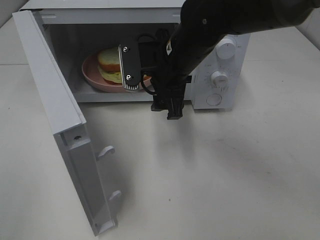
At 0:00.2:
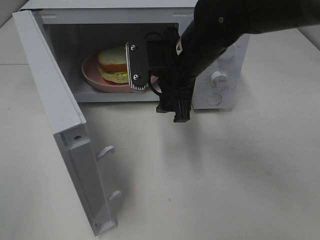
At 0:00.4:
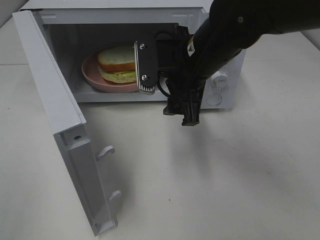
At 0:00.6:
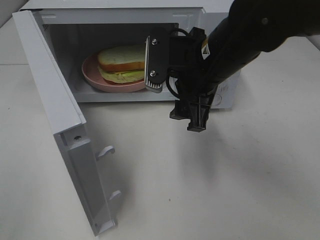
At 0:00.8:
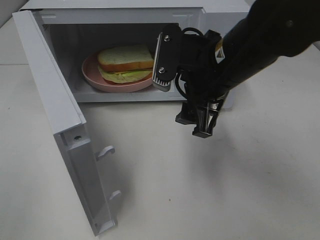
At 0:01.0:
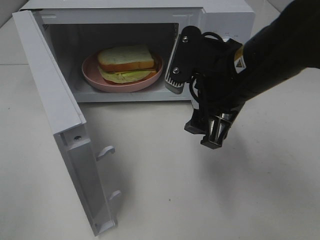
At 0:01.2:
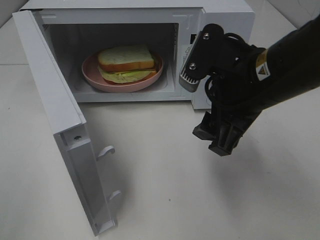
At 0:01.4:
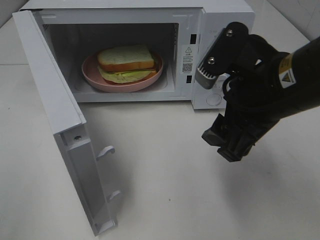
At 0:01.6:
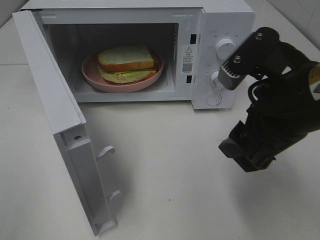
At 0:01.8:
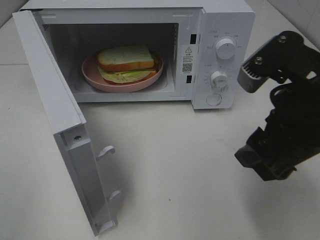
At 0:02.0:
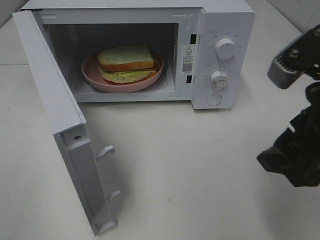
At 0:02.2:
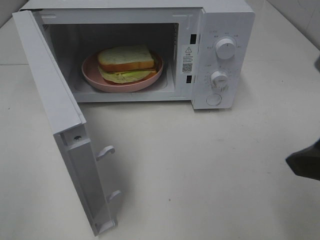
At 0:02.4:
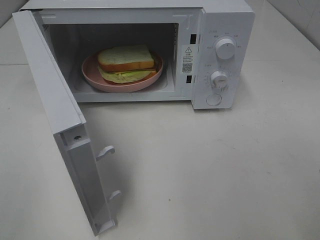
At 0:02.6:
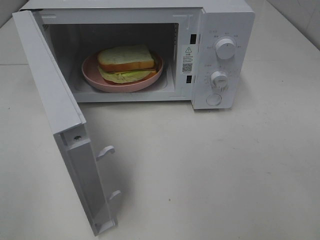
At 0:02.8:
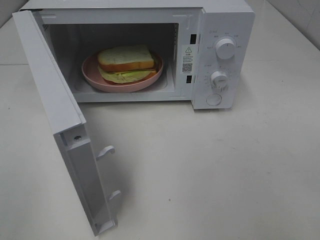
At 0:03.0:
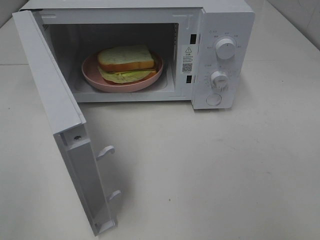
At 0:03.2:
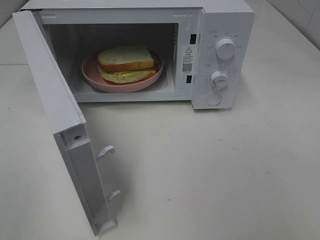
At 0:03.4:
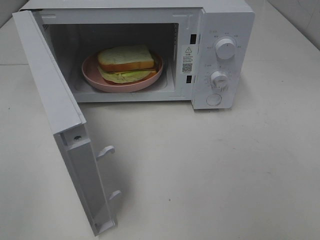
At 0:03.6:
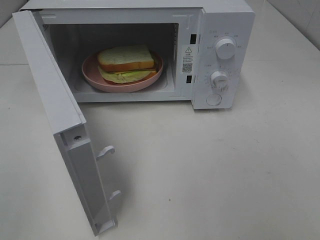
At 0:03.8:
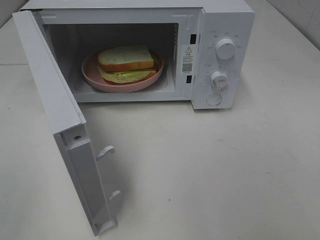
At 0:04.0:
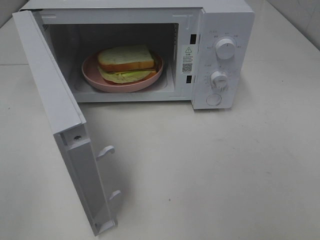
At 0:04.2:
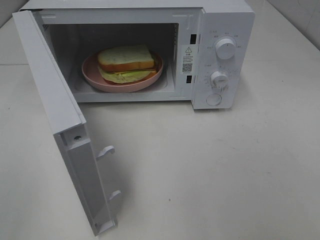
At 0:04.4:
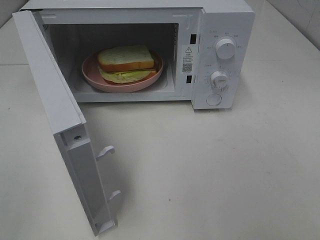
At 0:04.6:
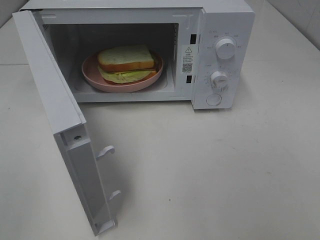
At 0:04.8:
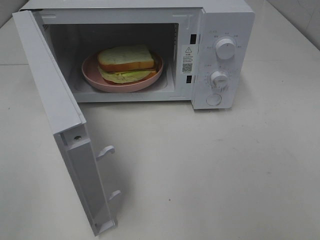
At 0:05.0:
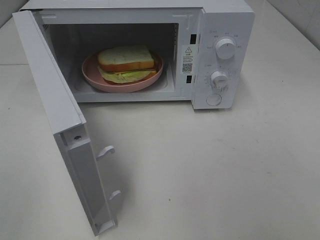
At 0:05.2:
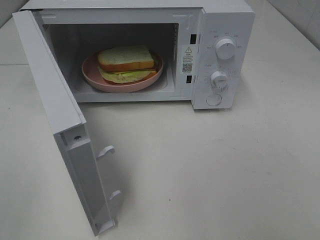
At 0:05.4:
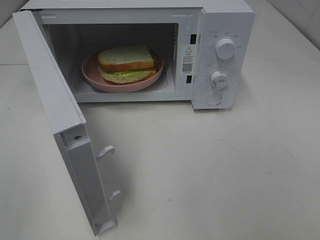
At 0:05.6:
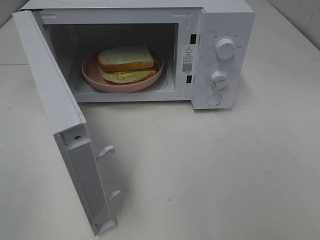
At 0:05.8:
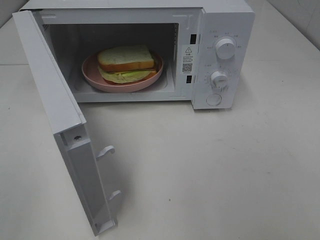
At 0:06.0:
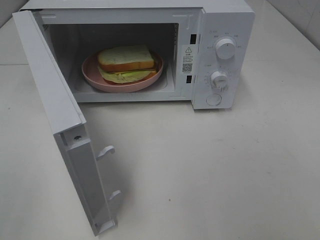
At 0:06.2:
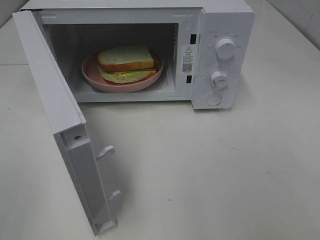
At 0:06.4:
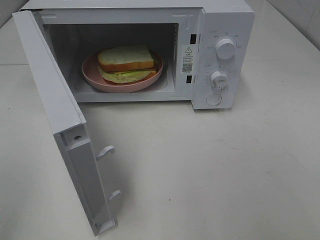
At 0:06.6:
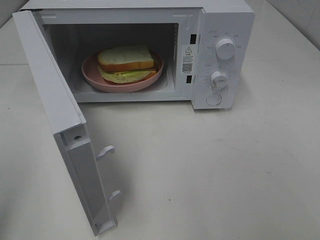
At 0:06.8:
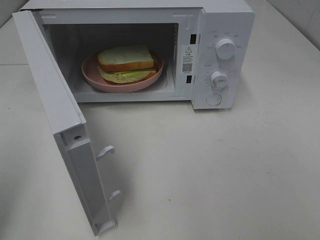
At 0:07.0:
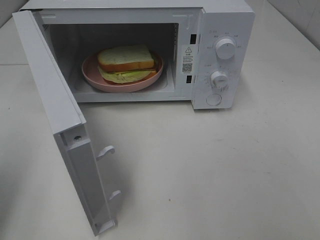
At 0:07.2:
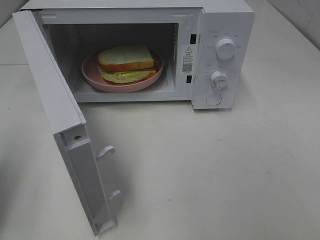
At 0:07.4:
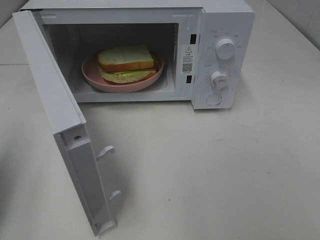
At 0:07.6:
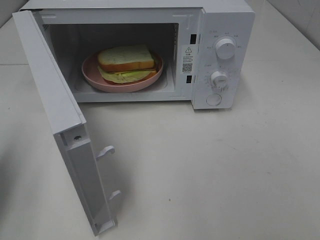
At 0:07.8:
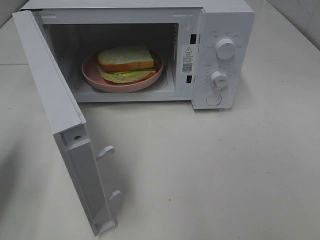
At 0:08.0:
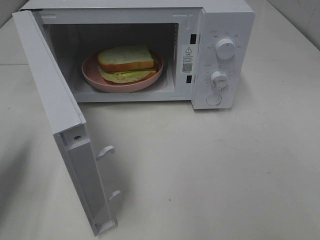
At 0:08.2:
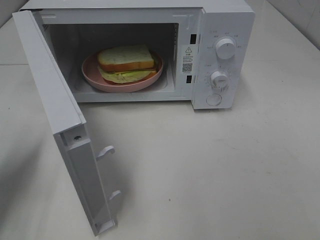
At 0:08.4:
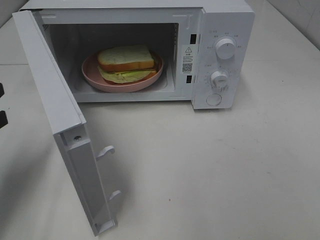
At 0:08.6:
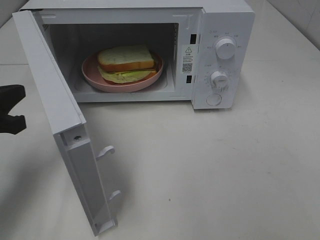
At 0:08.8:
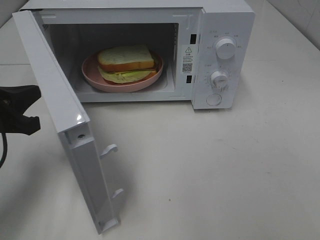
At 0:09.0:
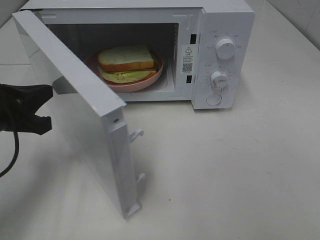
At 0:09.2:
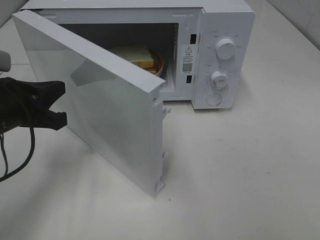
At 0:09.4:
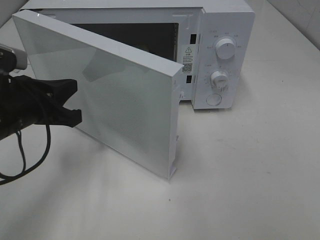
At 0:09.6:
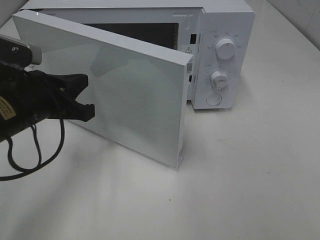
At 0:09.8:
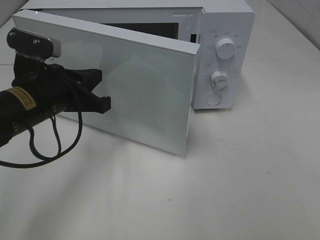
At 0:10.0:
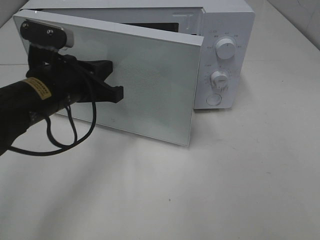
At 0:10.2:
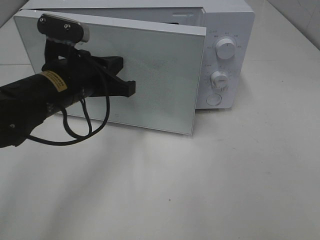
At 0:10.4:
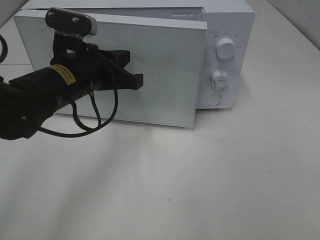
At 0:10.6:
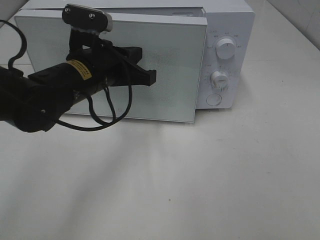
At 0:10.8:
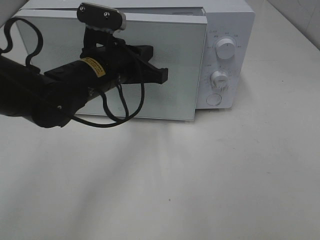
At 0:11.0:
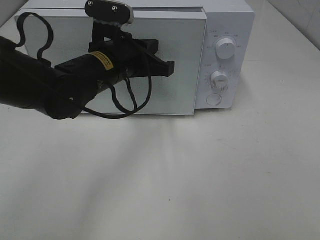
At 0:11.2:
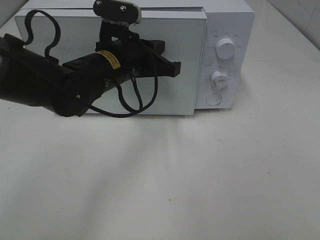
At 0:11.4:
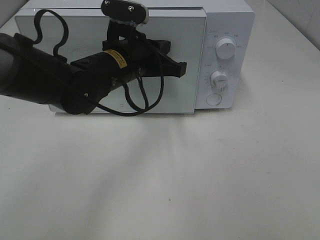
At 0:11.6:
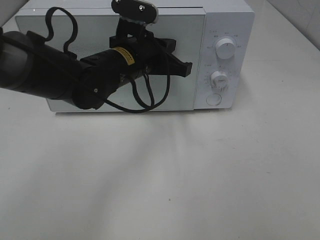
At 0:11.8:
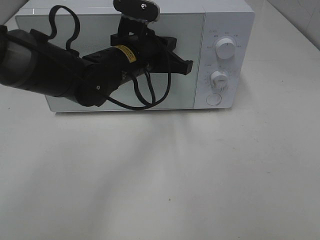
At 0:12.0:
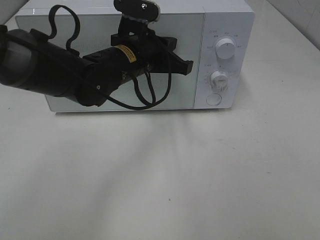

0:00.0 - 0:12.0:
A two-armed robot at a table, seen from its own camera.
Task of the whole recording: Heat Sandwich.
0:00.0 - 0:01.6: The right gripper travels backward and to the right by roughly 20 cm.
0:01.6 - 0:03.0: The right gripper goes roughly 20 cm backward, to the right and upward.
0:04.4 - 0:06.0: Both grippers stay put.
0:06.0 - 0:07.6: The left gripper travels forward by roughly 15 cm, and closes.
0:07.6 - 0:09.0: The left gripper is displaced to the right, forward and downward by approximately 10 cm.
0:09.0 - 0:10.4: The left gripper moves to the right and forward, approximately 15 cm.
0:10.4 - 0:12.0: The left gripper shifts approximately 10 cm to the right and forward.

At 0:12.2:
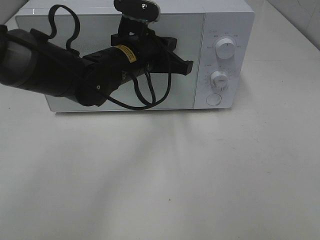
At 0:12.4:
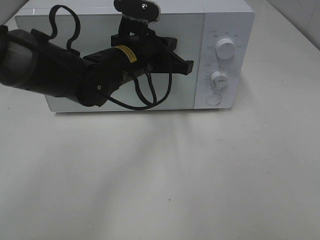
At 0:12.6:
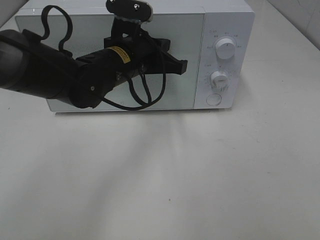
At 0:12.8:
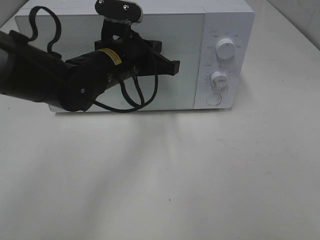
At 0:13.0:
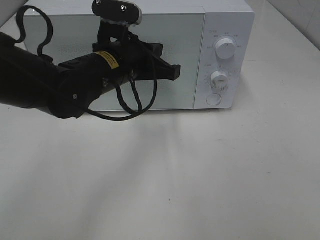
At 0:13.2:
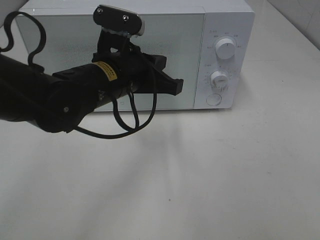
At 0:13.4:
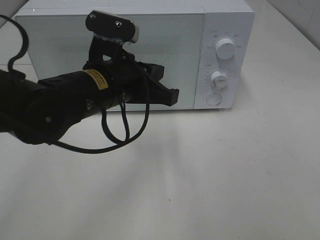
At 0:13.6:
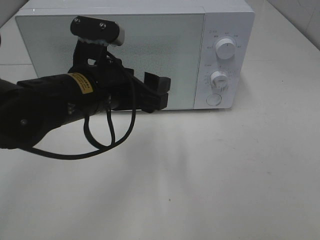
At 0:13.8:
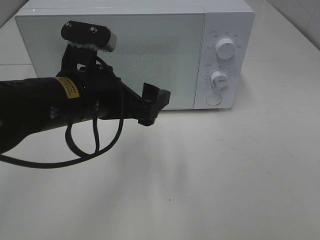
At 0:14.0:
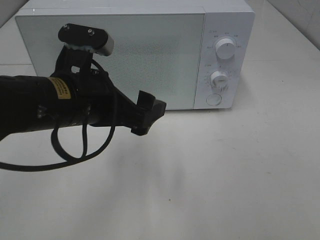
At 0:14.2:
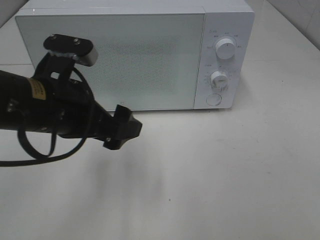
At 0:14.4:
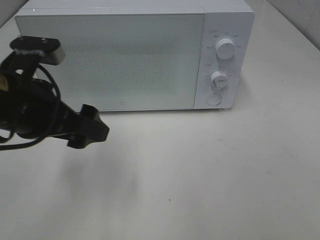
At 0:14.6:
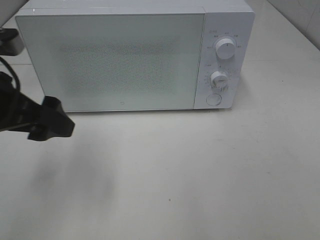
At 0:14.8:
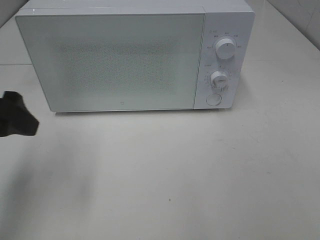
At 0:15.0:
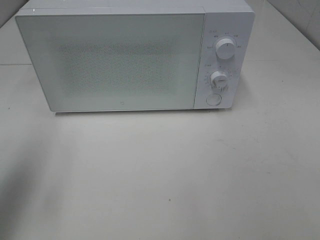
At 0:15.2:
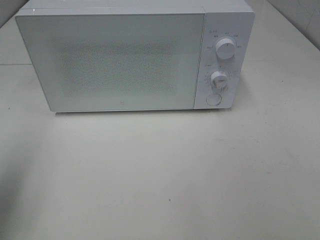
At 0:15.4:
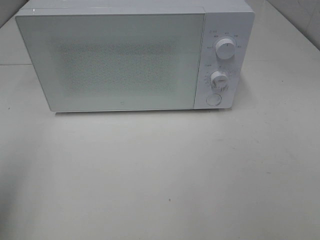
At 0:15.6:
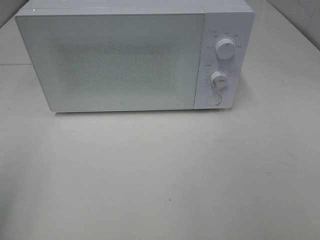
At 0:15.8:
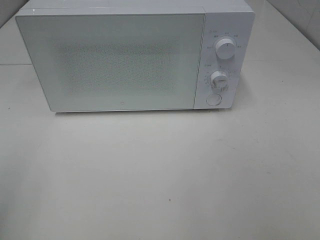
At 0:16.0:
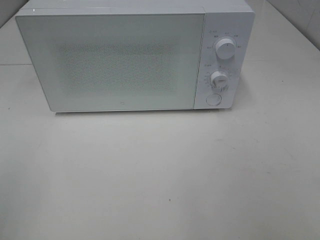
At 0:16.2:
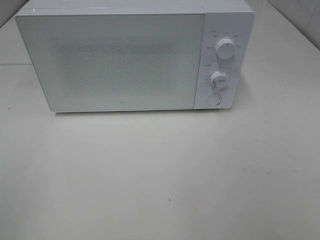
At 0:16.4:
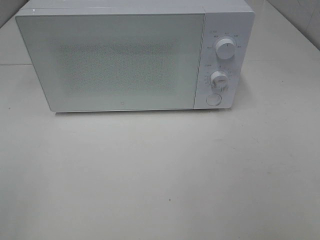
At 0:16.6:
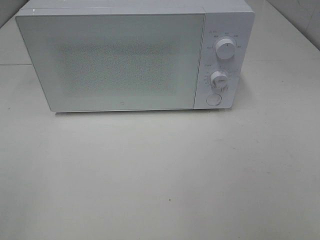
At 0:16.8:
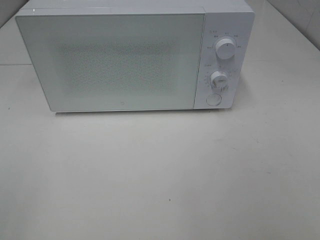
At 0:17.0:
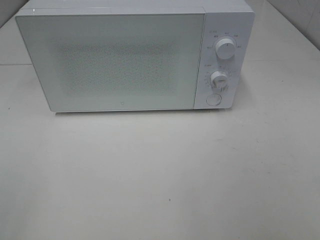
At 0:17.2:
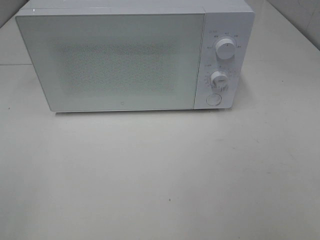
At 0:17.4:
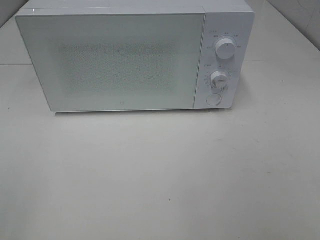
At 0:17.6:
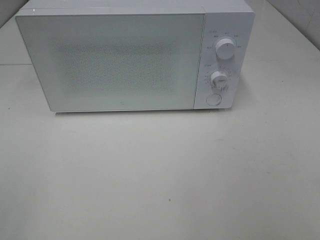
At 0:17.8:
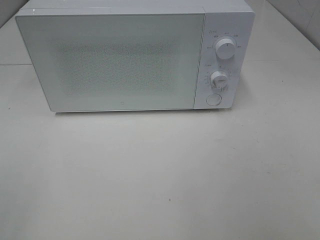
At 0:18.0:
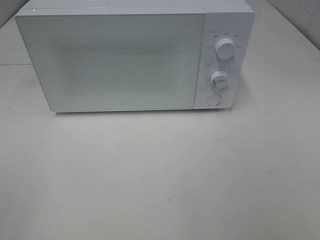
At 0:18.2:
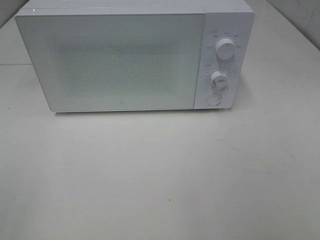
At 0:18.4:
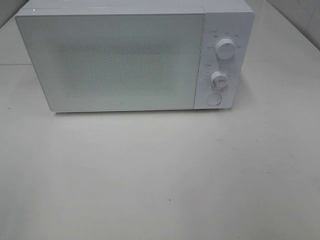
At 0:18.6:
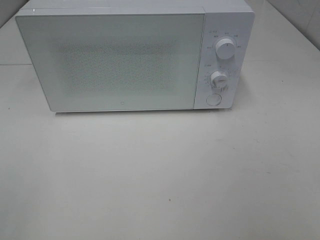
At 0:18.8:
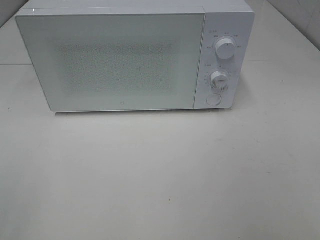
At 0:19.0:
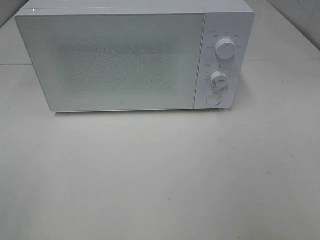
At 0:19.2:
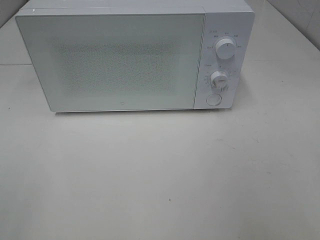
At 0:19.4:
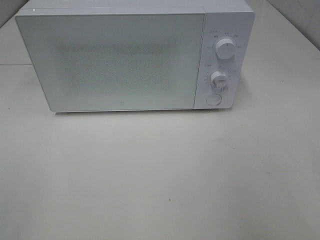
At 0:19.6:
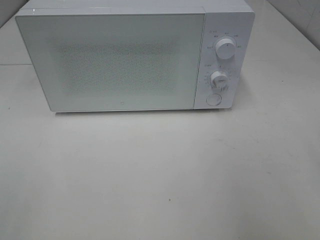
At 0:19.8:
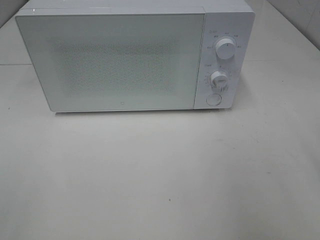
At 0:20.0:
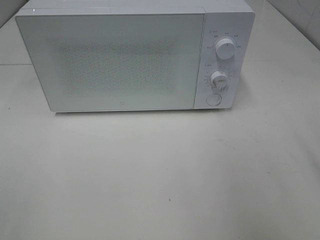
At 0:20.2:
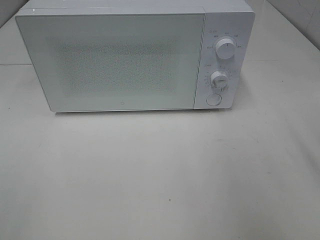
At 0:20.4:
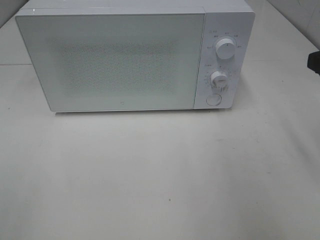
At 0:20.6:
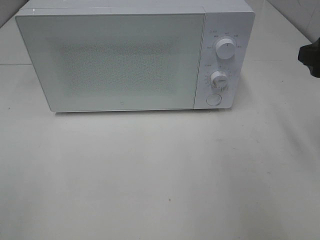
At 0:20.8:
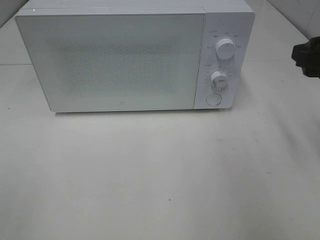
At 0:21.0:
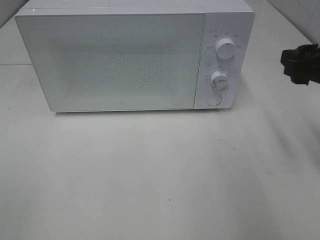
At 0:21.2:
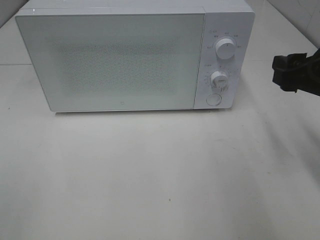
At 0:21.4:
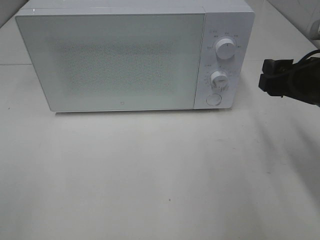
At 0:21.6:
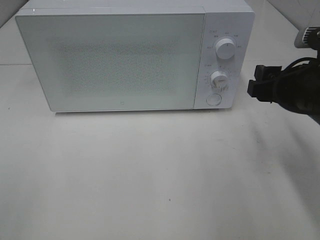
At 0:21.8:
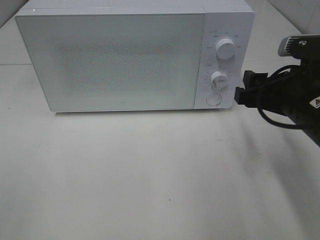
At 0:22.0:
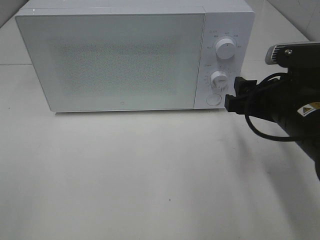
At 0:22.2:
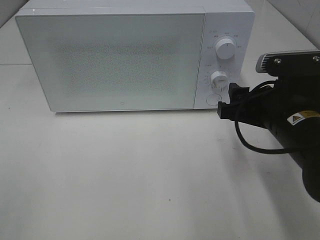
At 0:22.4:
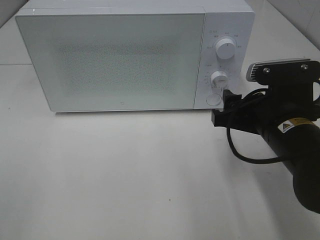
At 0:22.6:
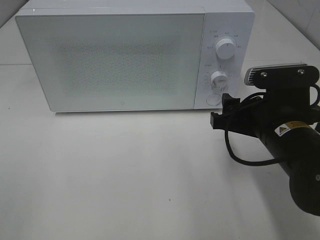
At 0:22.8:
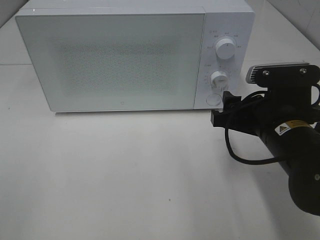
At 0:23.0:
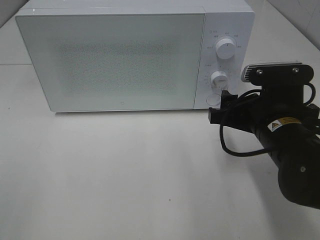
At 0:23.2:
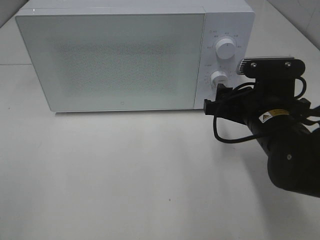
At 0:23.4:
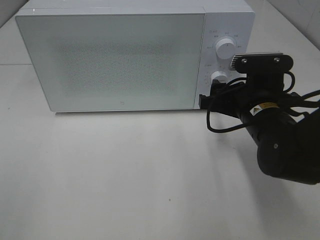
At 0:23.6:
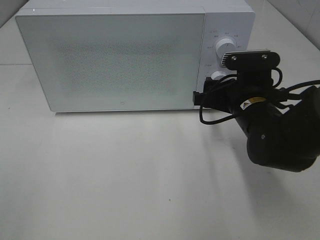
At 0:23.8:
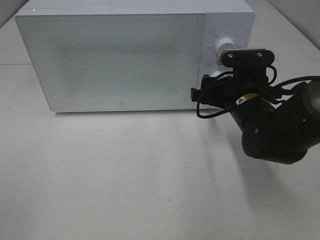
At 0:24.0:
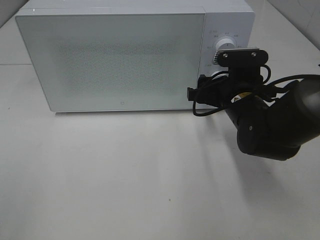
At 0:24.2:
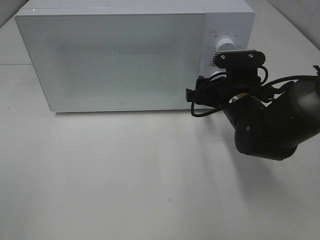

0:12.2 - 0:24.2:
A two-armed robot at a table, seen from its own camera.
Task of the whole recording: Heat Sandwich.
0:12.2 - 0:13.8: The left gripper is displaced backward and to the left by roughly 15 cm, and opens.
0:13.8 - 0:15.2: The left gripper is displaced to the left by roughly 20 cm.
0:15.2 - 0:16.6: The left gripper goes roughly 15 cm backward.
0:16.6 - 0:18.2: Both grippers stay about where they are.
0:19.8 - 0:21.2: The right gripper shifts some 10 cm forward and downward.
0:21.2 - 0:22.6: The right gripper shifts roughly 10 cm to the left and downward.
0:22.6 - 0:24.2: The right gripper heads forward, covering some 10 cm.
